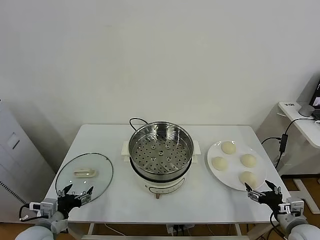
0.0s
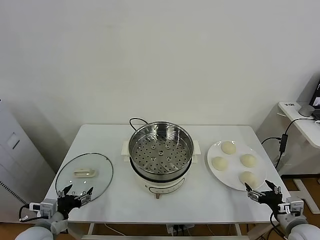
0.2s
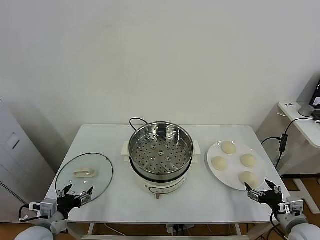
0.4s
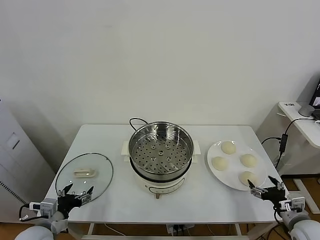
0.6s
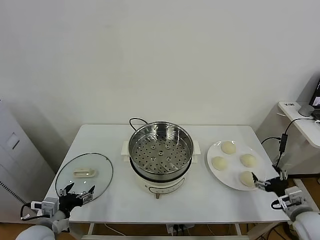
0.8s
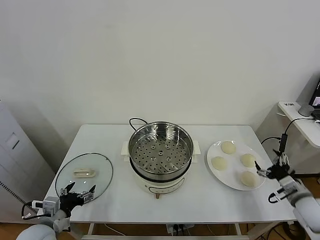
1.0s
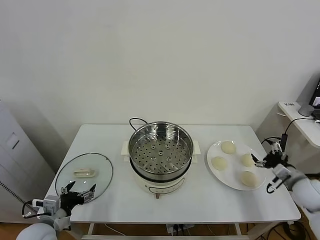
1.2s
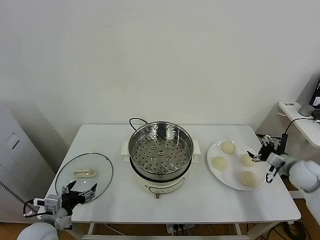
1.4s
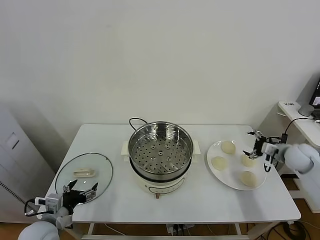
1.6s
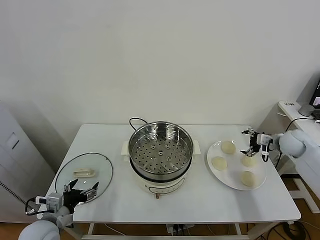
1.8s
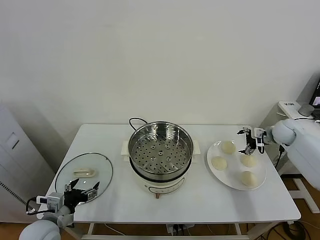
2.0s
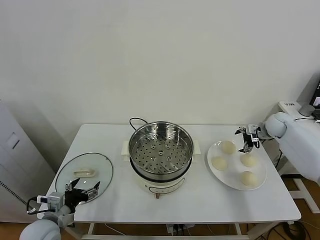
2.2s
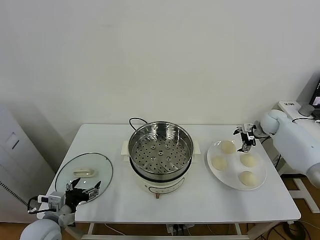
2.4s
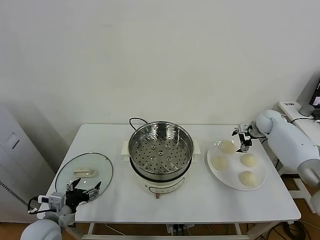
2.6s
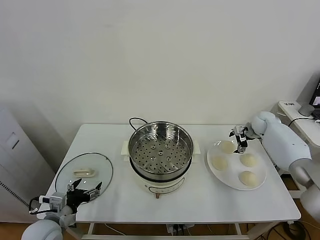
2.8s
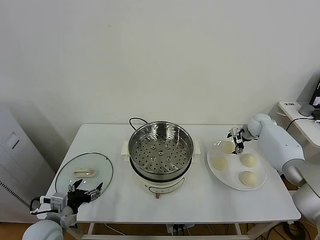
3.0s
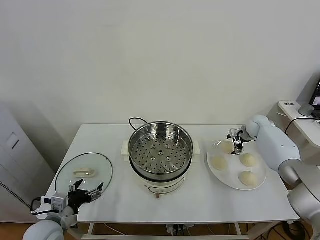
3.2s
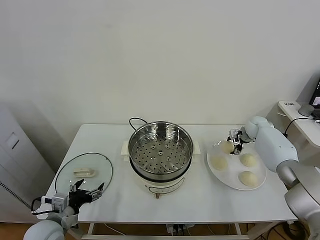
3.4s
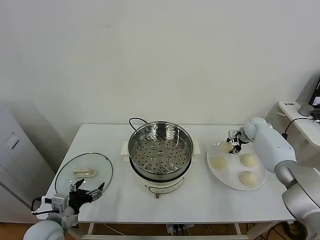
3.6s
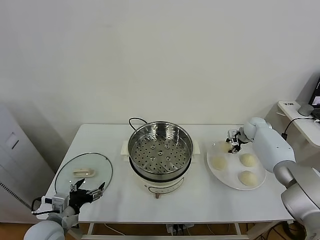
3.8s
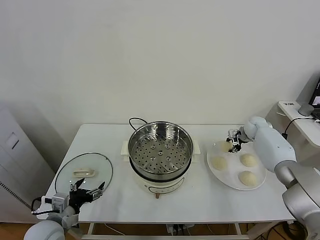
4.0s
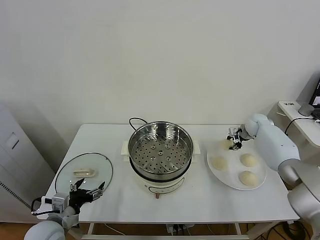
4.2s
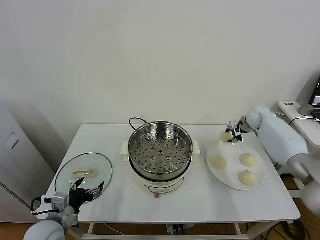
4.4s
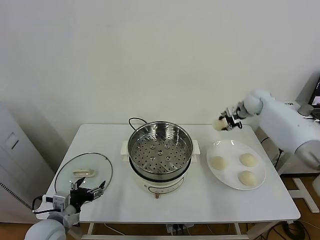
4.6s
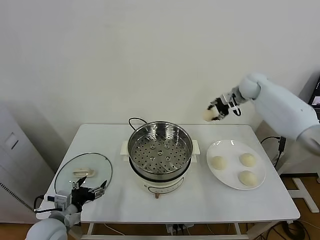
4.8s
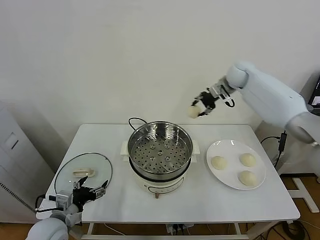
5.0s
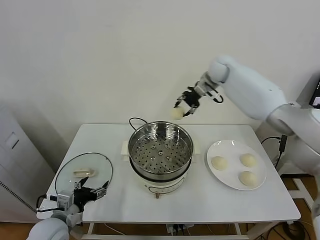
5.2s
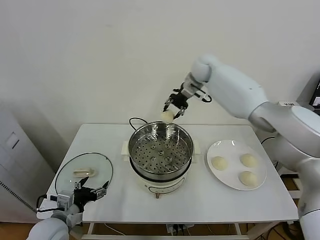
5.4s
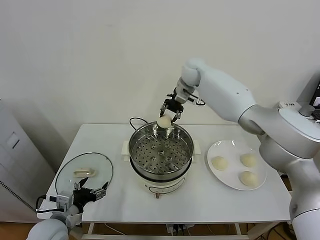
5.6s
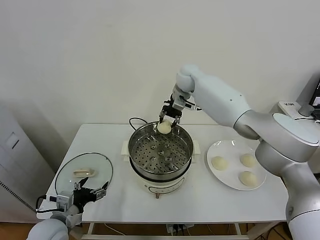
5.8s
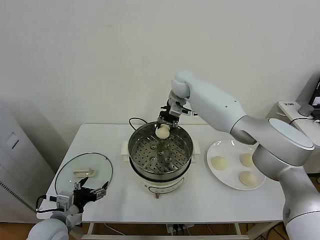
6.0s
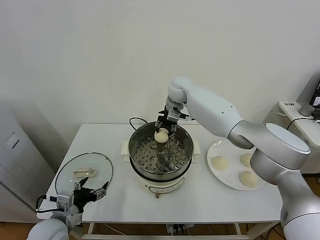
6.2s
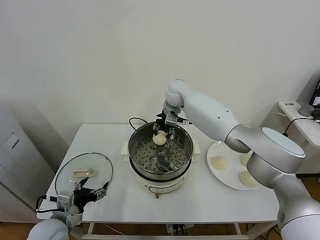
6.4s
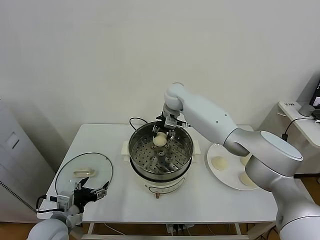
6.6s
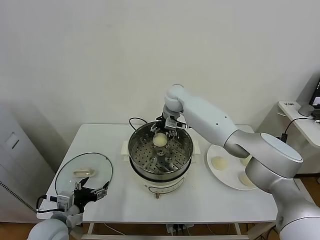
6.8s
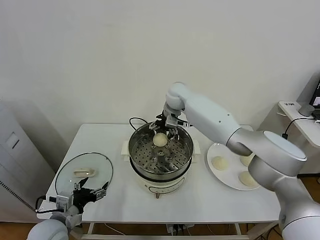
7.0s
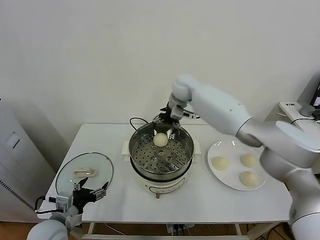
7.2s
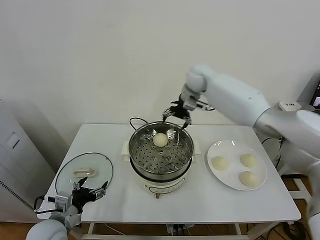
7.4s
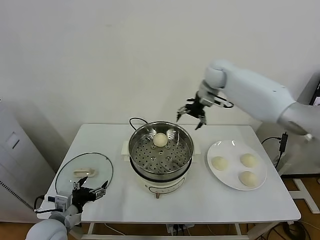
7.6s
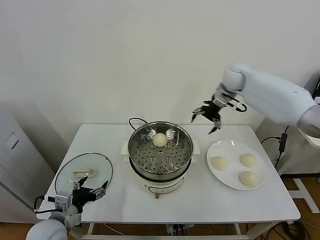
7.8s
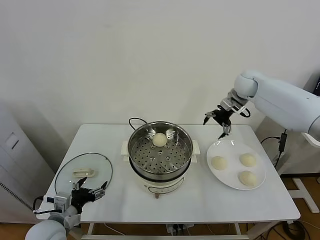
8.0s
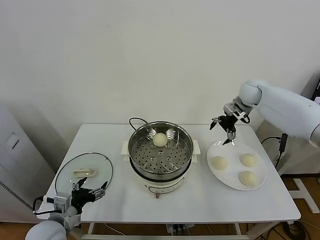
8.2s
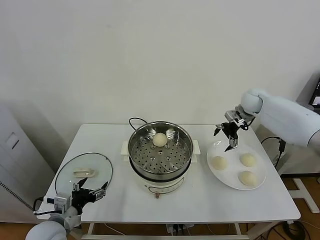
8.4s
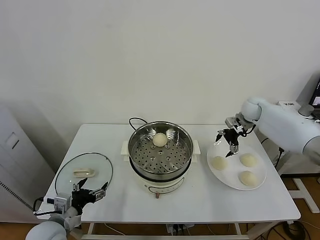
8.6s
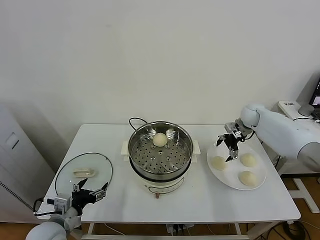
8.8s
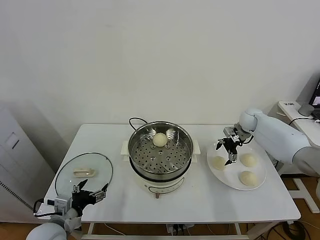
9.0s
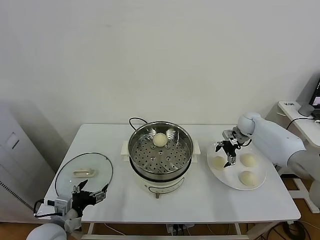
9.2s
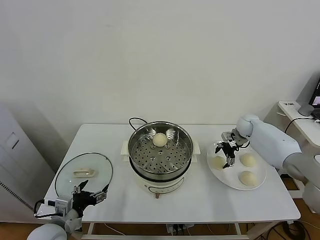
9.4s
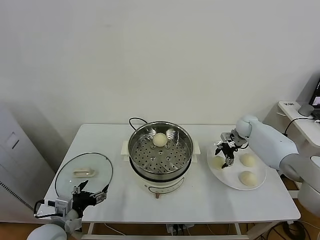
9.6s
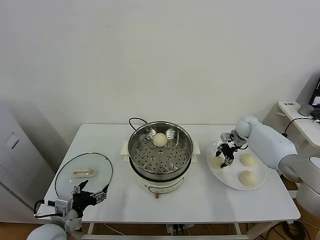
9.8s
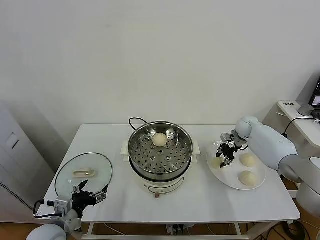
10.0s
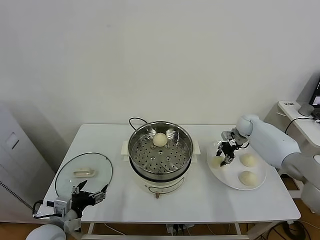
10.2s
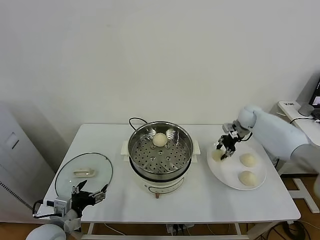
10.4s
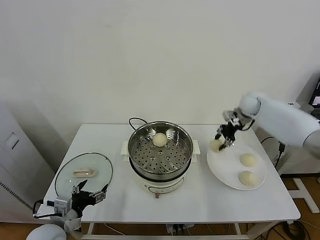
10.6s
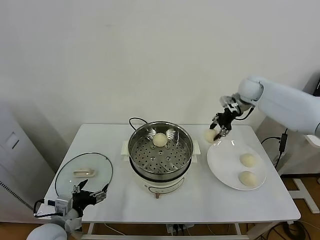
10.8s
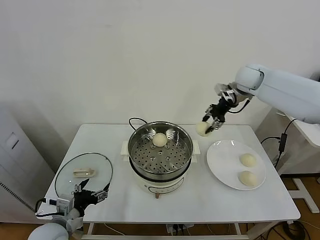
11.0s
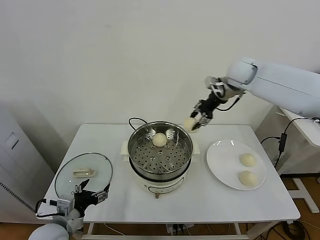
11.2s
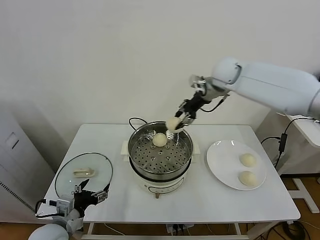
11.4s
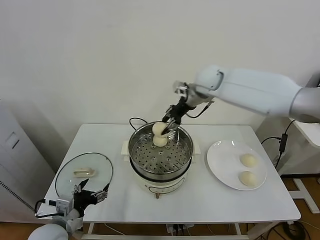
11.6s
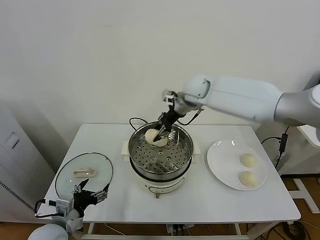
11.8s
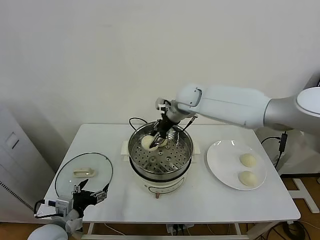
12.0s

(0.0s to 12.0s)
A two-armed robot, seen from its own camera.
Task of the whole recording: take steamed baozi put them in steamer.
Step, 0.0s - 3.4s: Grasp the baozi in the plate with right gripper.
Step, 3.6s - 6.8s: Place the baozi on the steamer with right gripper.
Step, 7.0s - 9.8s: Grasp the baozi in the plate with right gripper.
1.6s - 3.0s: The right gripper heads forward and to the left, covering roughly 15 cm.
3.0s - 4.4s: The right gripper is displaced upward by approximately 10 cm, and closes.
4.4s - 6.0s: The right gripper moves to the left, some 30 cm.
6.0s - 7.6s: The right gripper shifts some 15 cm to the right, and opens up.
7.6s - 9.0s: The right gripper heads downward and to the right, covering roughly 25 cm.
9.0s - 10.4s: The right gripper ends up some 5 cm from where it was, and closes up.
10.4s - 12.0s: The right gripper moves to the left, about 30 cm.

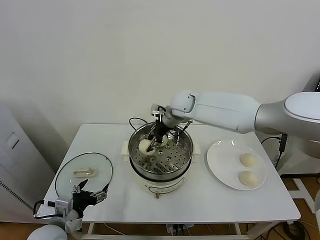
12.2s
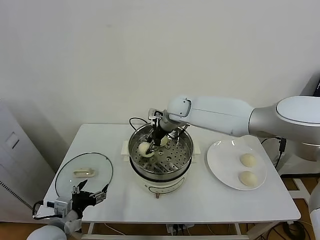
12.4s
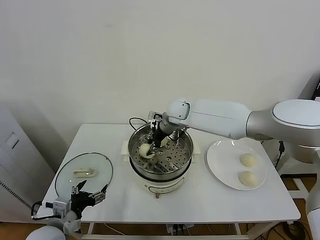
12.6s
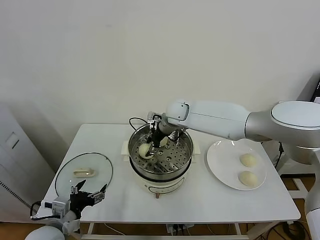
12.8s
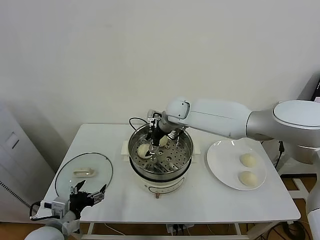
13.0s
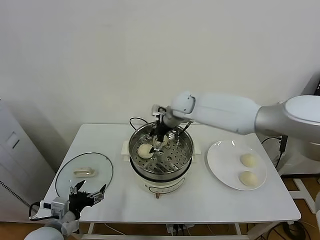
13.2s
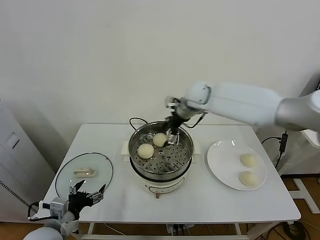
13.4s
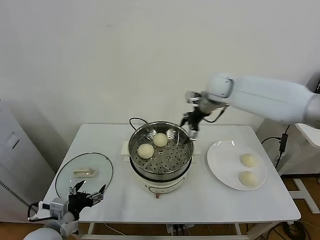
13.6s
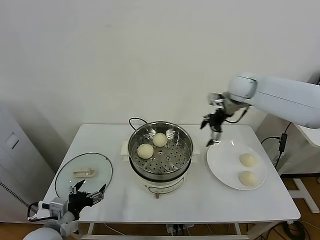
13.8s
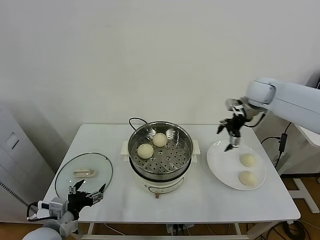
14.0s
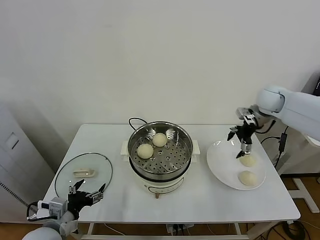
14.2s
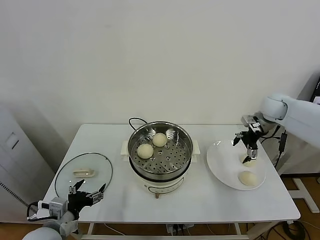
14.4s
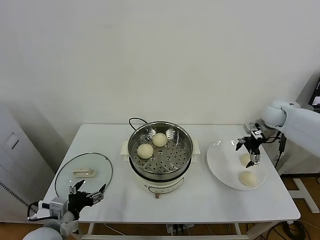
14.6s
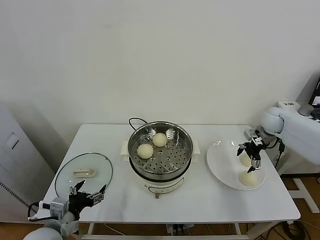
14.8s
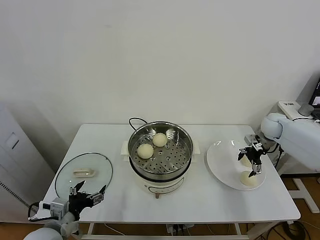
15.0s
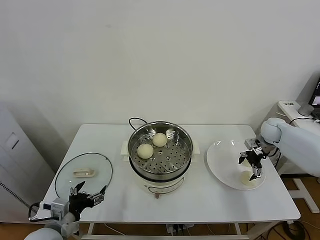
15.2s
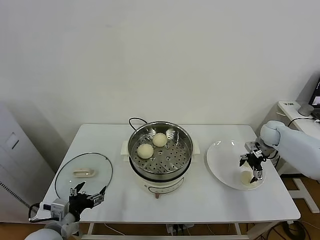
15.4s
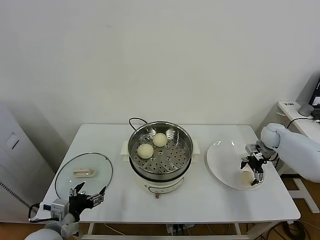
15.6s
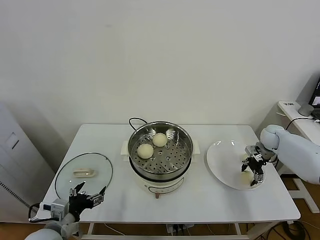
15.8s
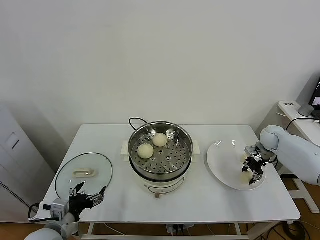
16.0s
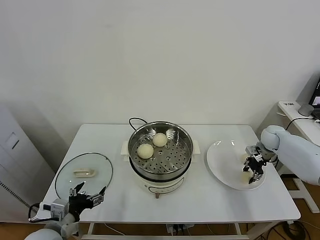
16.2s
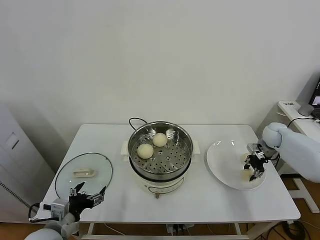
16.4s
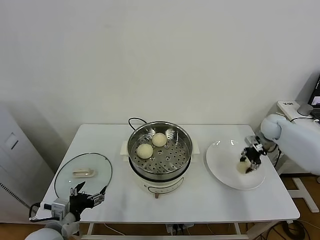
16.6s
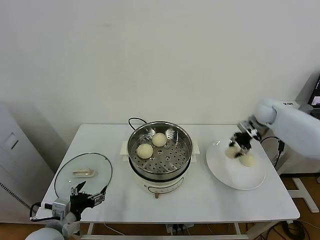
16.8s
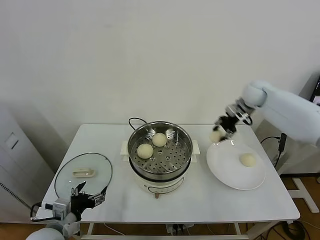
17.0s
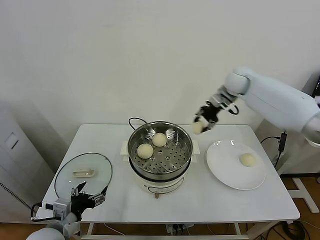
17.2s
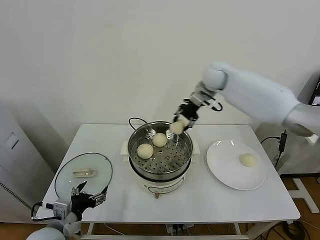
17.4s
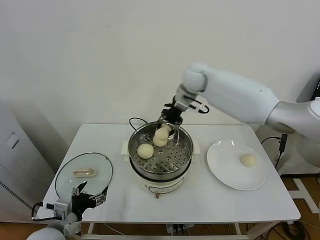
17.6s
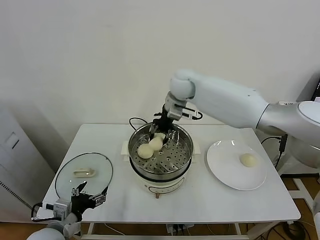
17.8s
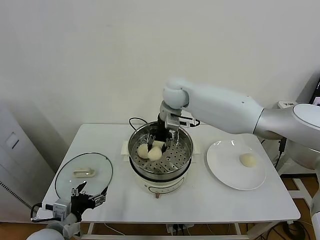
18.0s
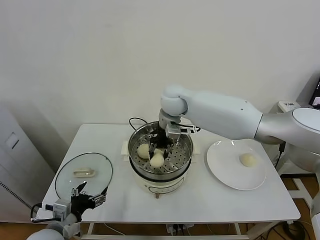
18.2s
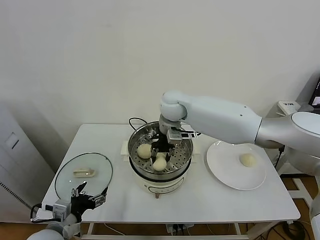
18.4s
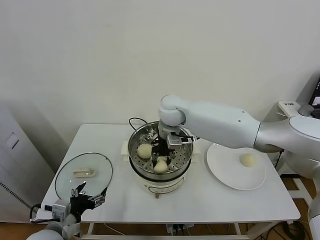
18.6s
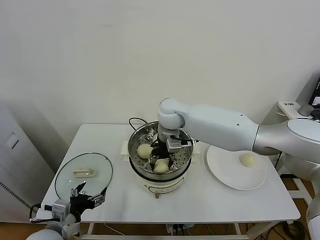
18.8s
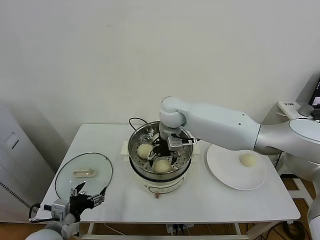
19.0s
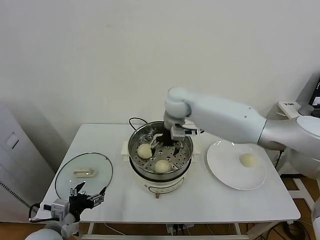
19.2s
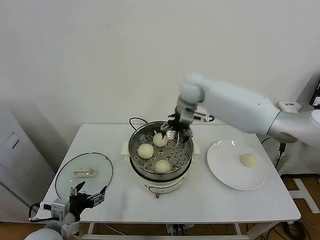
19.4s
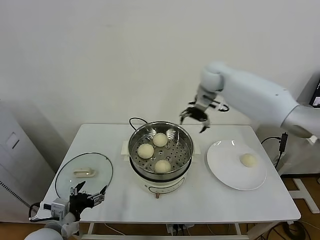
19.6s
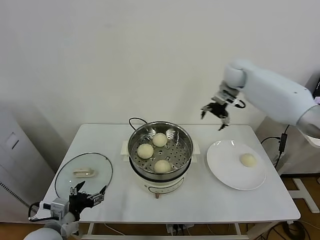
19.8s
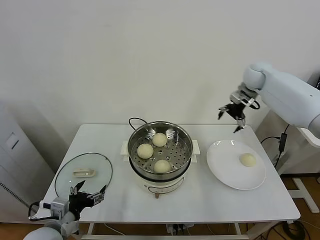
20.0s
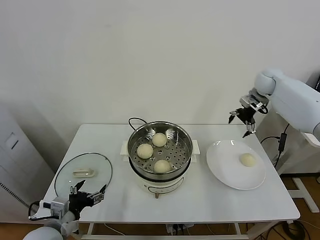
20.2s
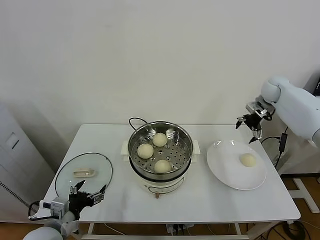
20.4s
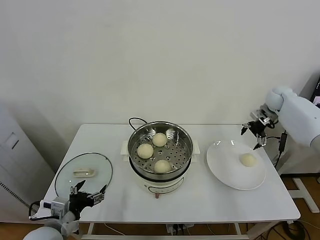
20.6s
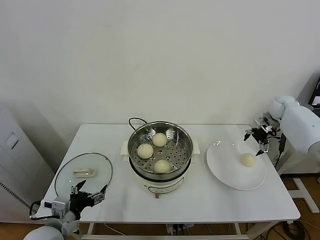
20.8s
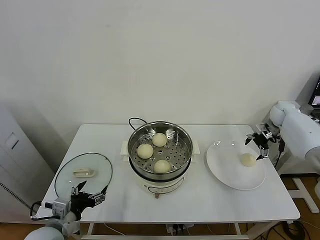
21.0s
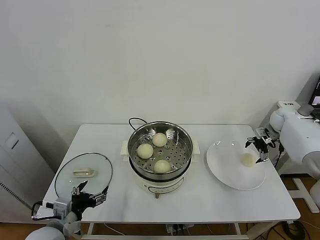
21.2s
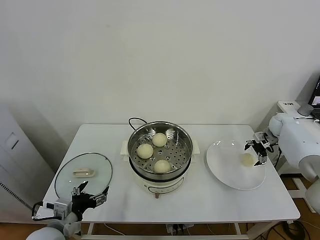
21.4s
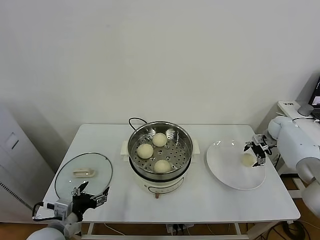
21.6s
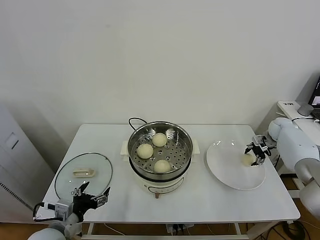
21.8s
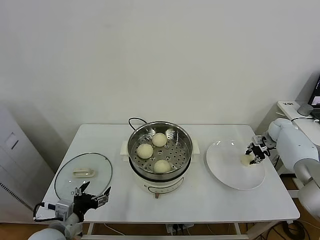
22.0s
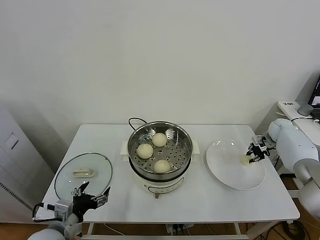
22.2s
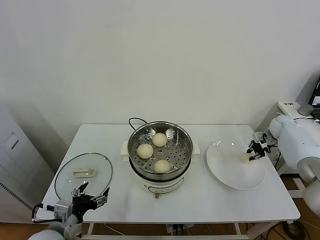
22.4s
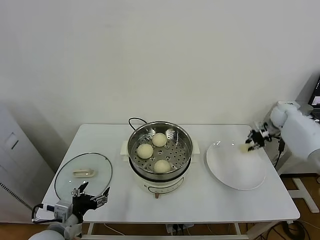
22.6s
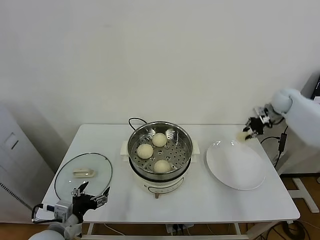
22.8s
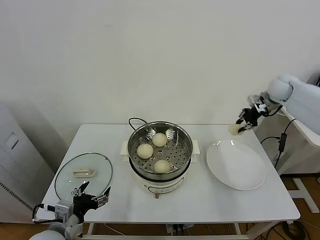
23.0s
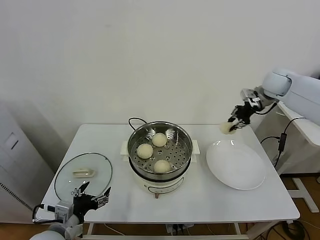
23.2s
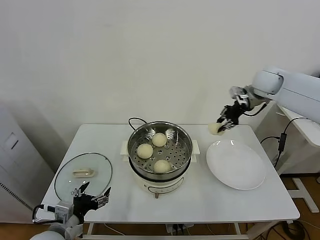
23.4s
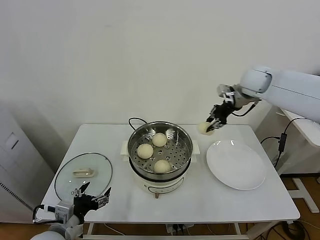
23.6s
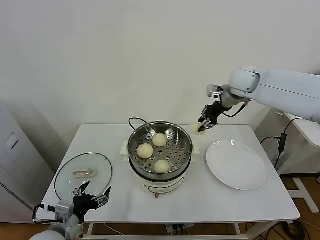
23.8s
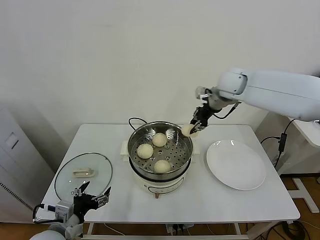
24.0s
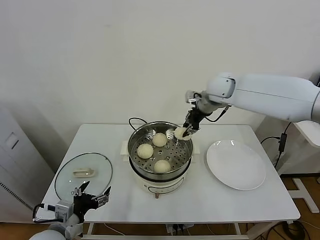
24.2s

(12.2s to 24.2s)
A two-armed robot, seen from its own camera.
Task of the whole recording: take steamed baozi put them in steamer.
Step, 13.2s - 16.0s: Grasp the baozi in the plate with right gripper.
Step, 16.2s - 19.0s: Place the baozi on the steamer with right gripper.
Step, 19.2s - 22.0s: Grasp the baozi in the plate with right gripper.
12.2s - 13.8s: The right gripper moves to the right, approximately 20 cm, and opens.
13.8s - 15.2s: The right gripper is displaced downward and to the right by approximately 25 cm.
15.2s - 16.6s: The right gripper closes up.
16.6s - 18.2s: The right gripper is displaced to the left by roughly 40 cm.
18.2s - 19.8s: The right gripper heads to the right, covering approximately 25 cm, and opens up.
19.8s - 21.2s: The right gripper is displaced to the right and downward by approximately 30 cm.
21.2s - 22.6s: The right gripper closes its fingers.
22.6s - 24.2s: The right gripper travels to the left and upward by approximately 35 cm.
